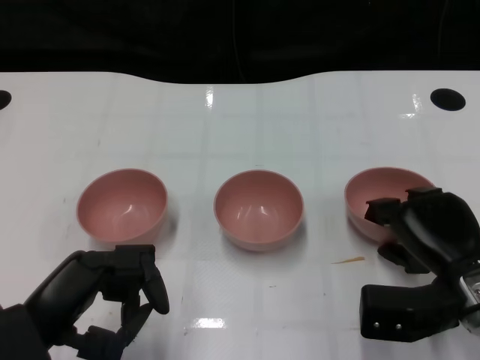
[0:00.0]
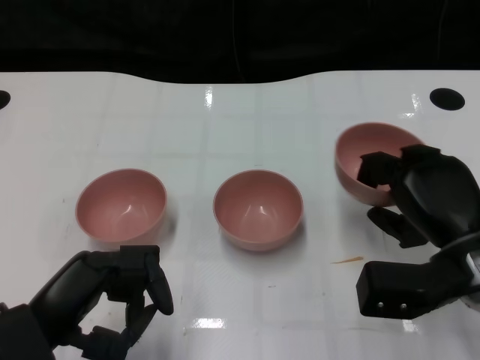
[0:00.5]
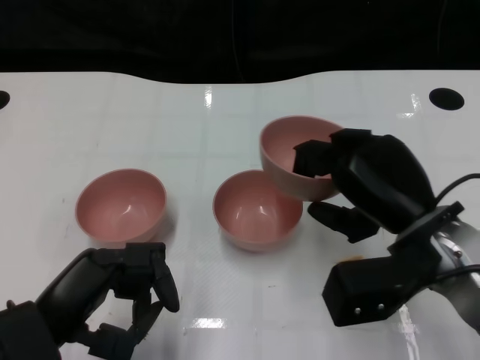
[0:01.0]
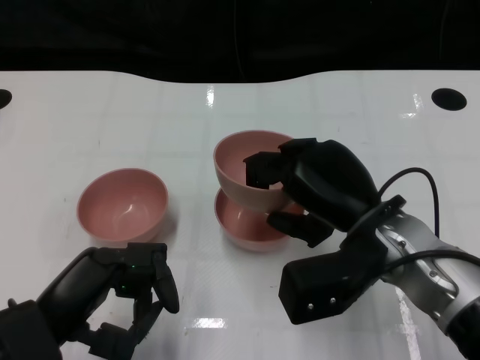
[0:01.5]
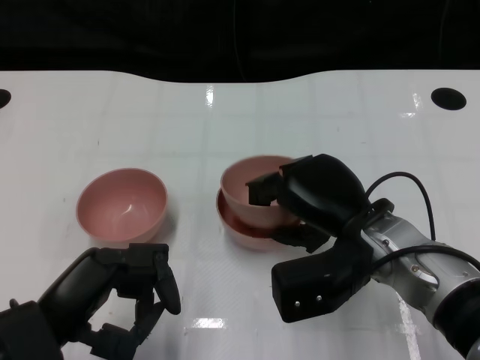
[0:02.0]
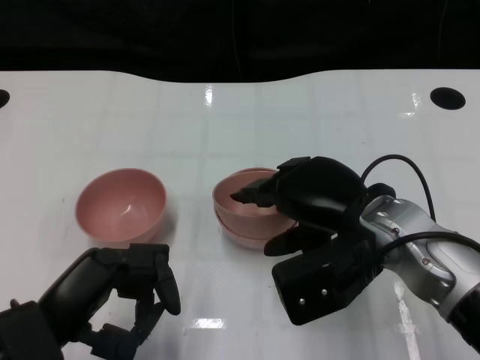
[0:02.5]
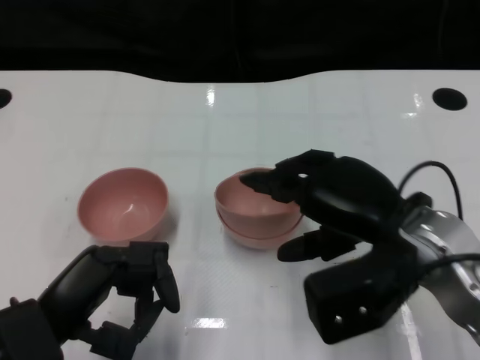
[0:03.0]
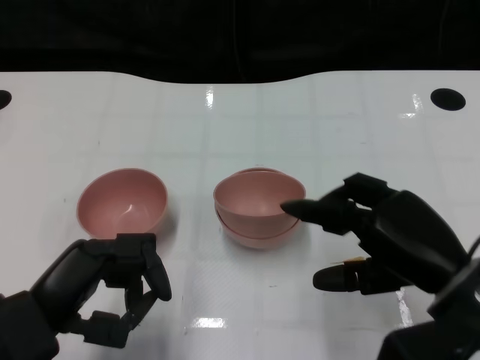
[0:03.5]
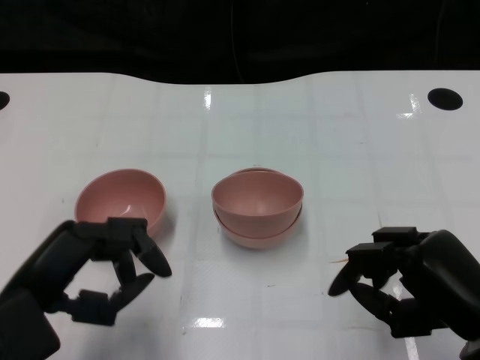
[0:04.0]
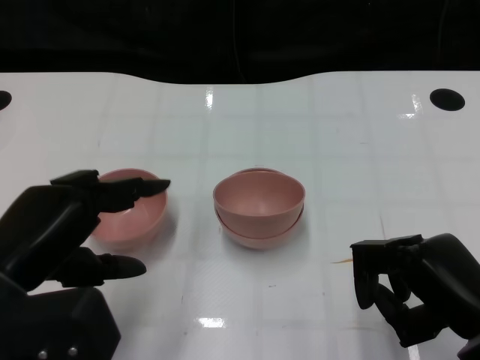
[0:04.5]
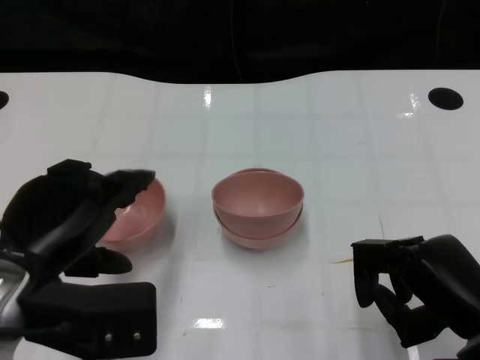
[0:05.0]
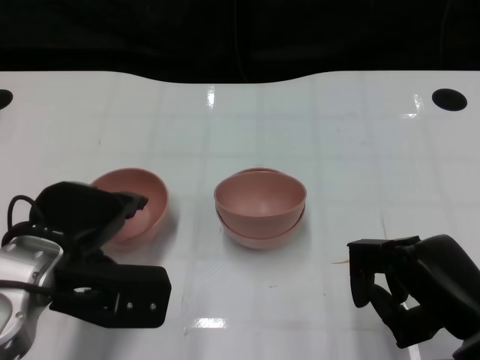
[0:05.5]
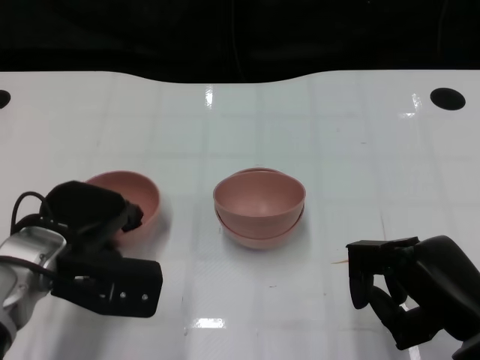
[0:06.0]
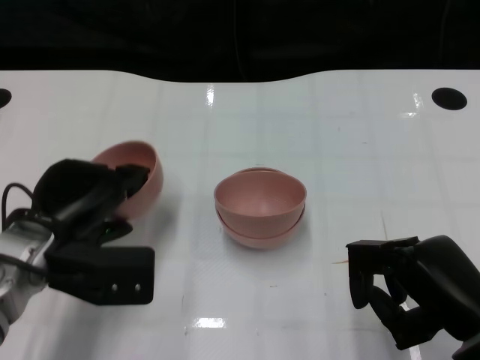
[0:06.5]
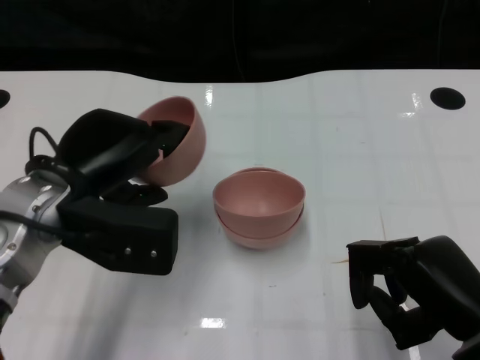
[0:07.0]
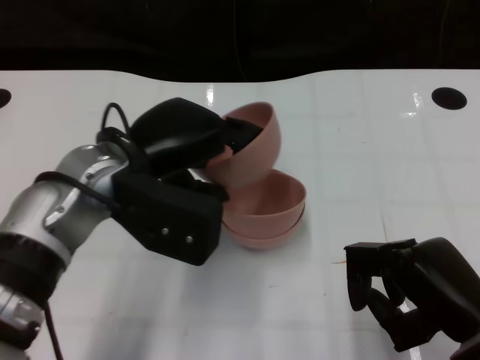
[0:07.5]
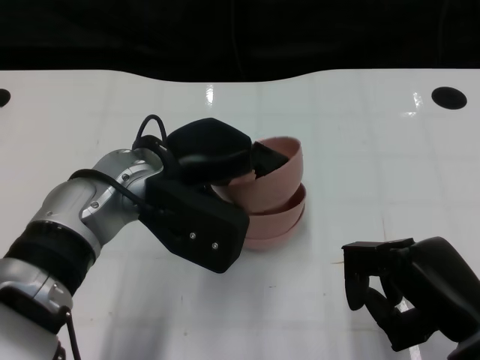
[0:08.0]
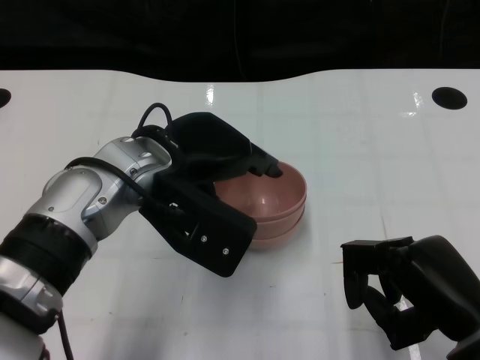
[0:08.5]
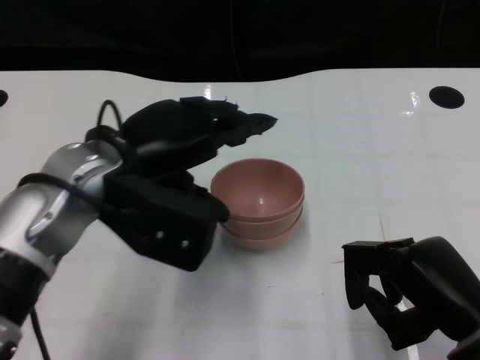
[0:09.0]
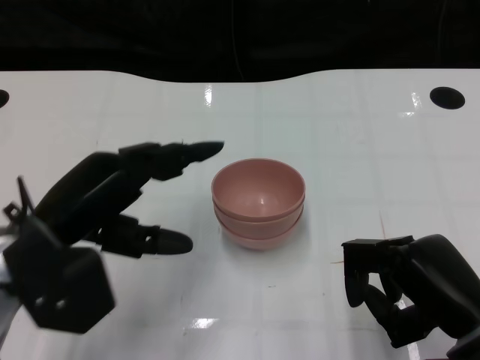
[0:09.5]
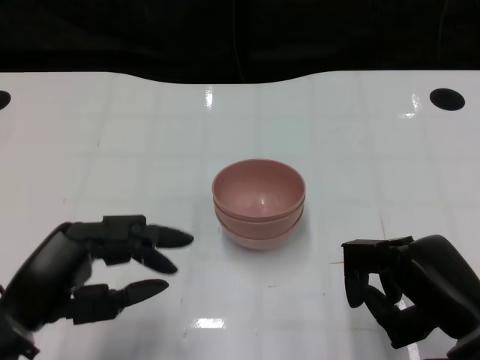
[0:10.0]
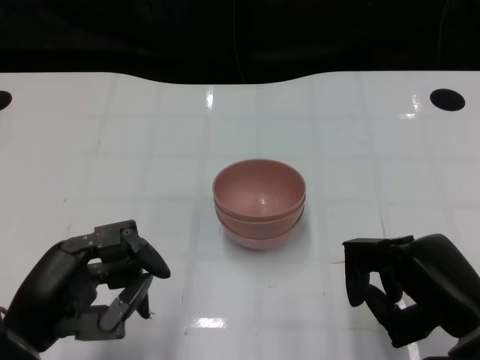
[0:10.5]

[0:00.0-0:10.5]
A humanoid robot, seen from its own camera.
Task of the whole recording: Pick up the bowl on one side of the table and place it on top of the middle bowl, then pick up the bowl on the other side of the table and place it on top of the middle bowls.
Step, 0.5 to 3.0 s: Place the bowl on the right onto the bowl in the middle with right gripper.
Step, 3.5 to 6.0 s: Grasp the bowl on the left with the left gripper.
Step, 6.5 to 9.0 s: Place the bowl on the left onto the bowl in the middle with left gripper.
0.0 to 2.0 s: The right hand is displaced to the left by about 10 cm.
2.0 to 4.0 s: The right hand heads to the right and backward, covering about 15 cm.
4.0 to 6.5 s: The left hand travels forward by about 10 cm.
6.5 to 8.5 s: The left hand moves to the right and upward, some 15 cm.
8.5 to 10.5 s: The left hand goes some 20 cm backward, to the left and downward.

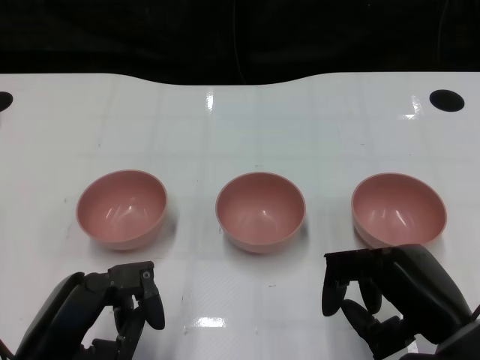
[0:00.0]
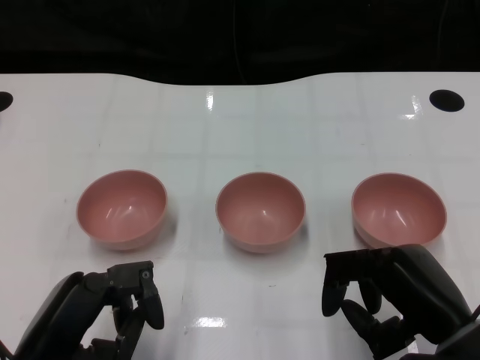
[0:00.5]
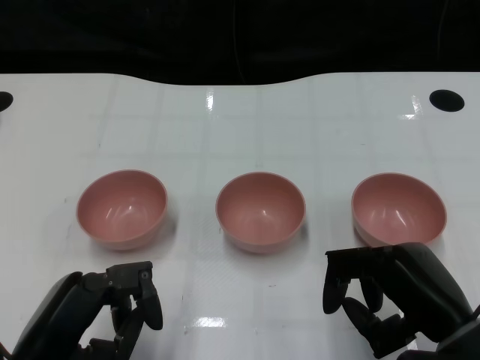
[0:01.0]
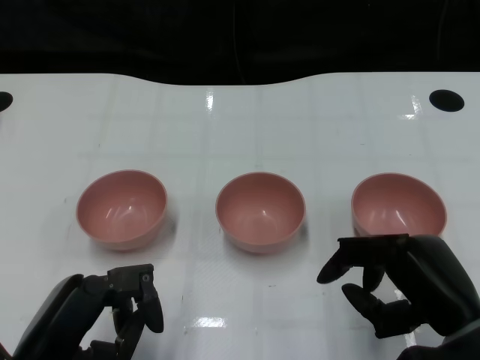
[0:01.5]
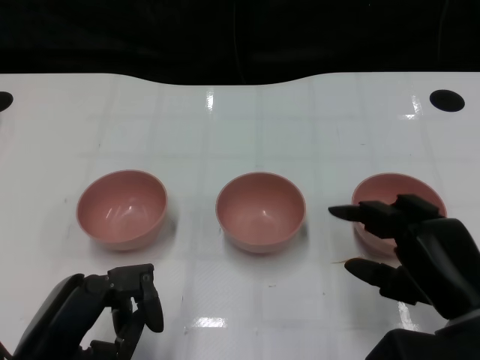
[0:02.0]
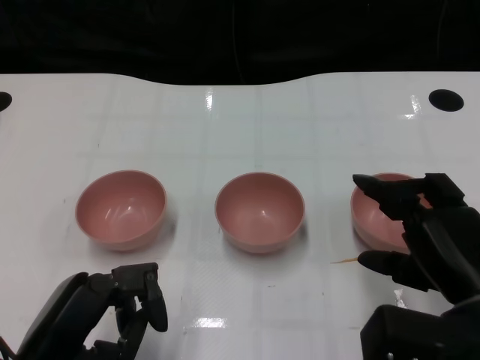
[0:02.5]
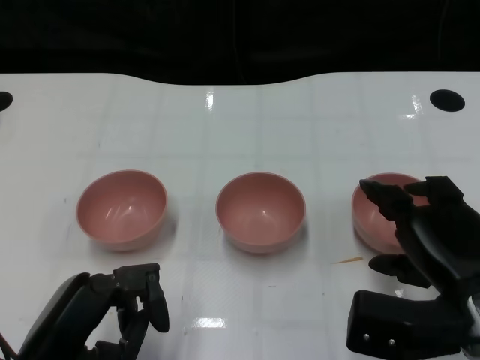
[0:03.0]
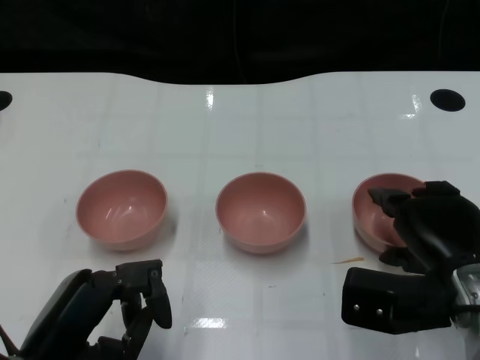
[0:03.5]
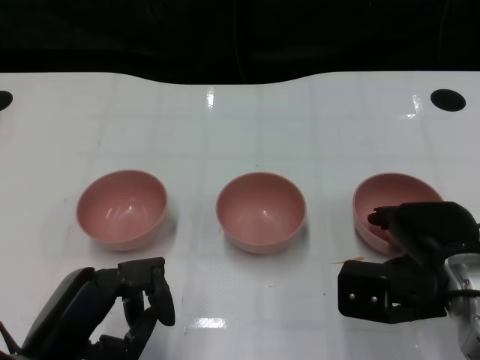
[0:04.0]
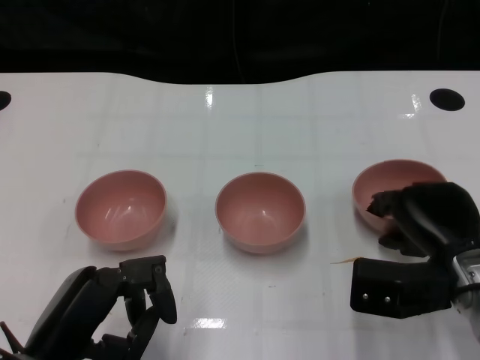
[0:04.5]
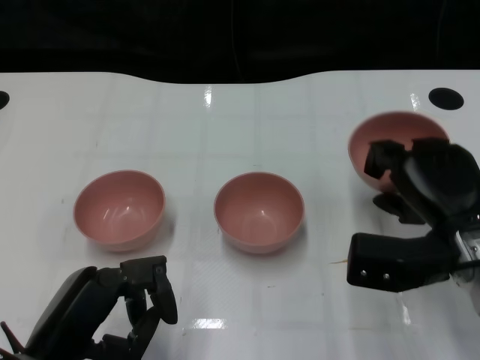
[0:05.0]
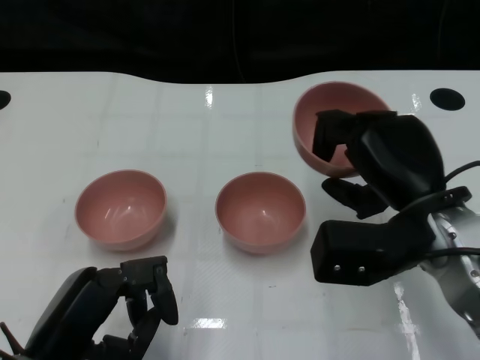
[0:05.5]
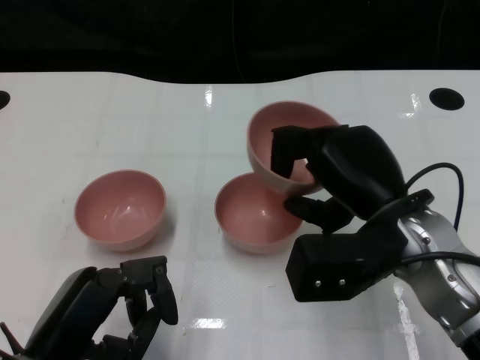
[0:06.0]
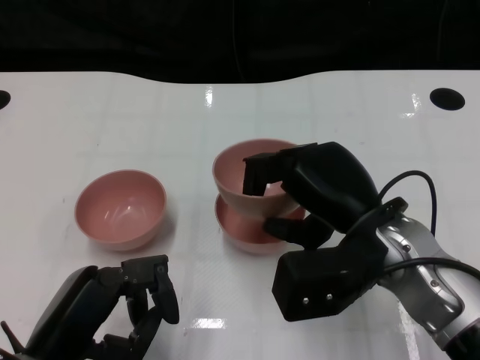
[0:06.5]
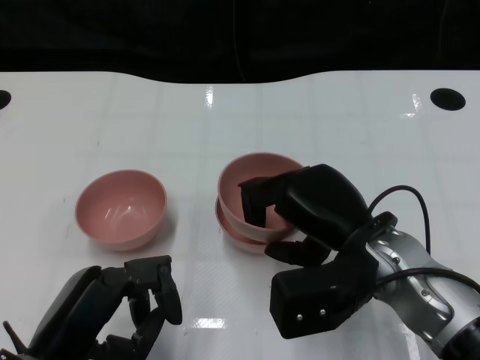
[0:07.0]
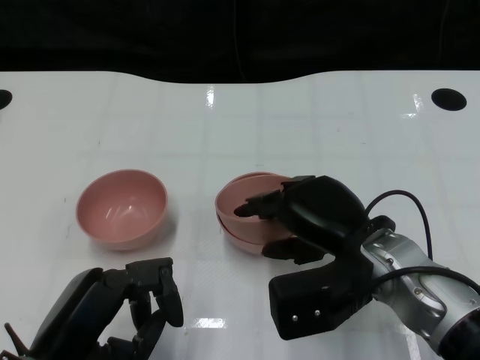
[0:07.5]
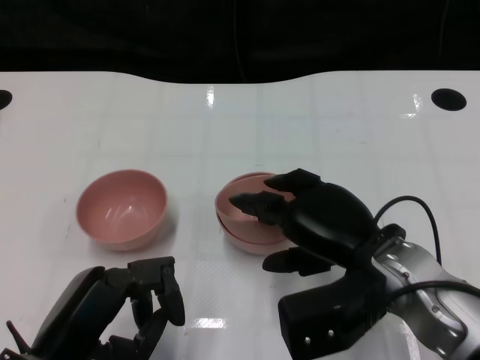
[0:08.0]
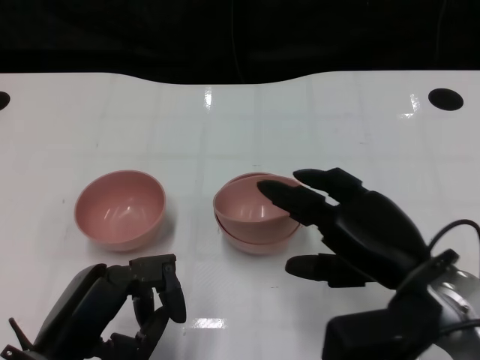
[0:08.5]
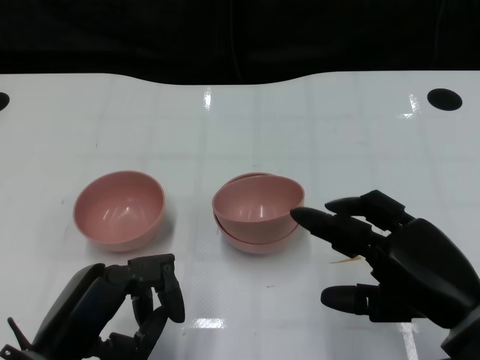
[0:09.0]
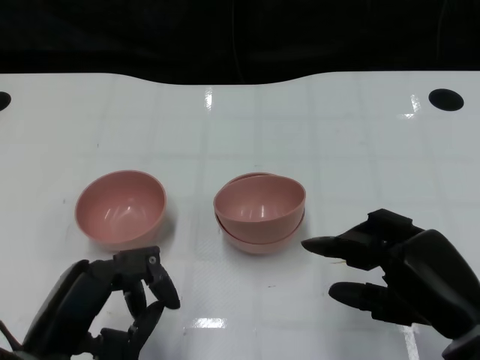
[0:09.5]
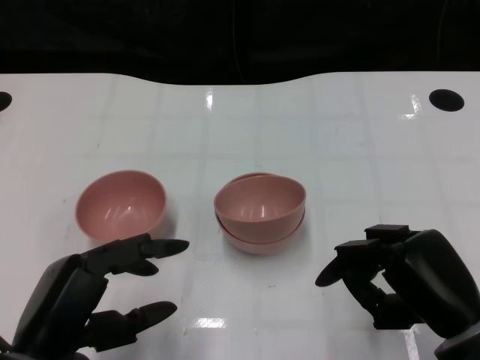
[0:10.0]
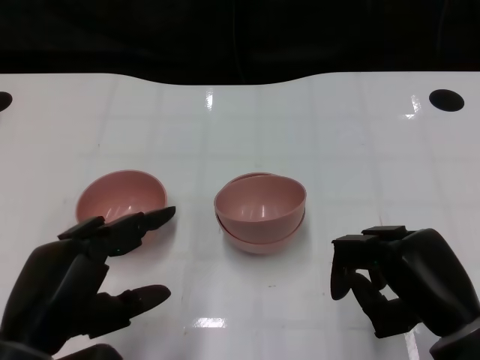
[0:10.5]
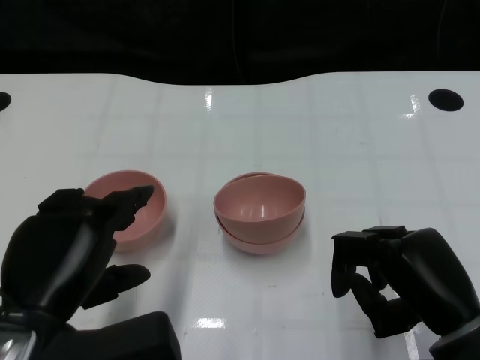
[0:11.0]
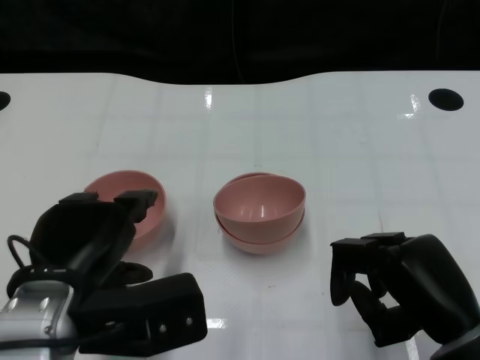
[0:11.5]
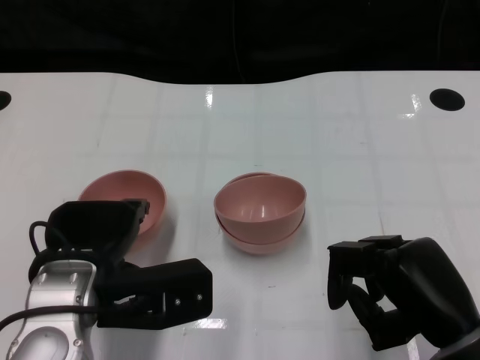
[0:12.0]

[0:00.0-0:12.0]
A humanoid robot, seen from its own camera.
Task of the whole recording: Pick up the bowl on one side of the table and place it on top of the middle bowl, then pick up the bowl on the other side of the table and place it on top of the middle bowls.
Step, 1.5 to 4.5 s: Grasp the bowl on the right with the right gripper.
Step, 5.0 to 8.5 s: Place the bowl on the right onto the bowl in the middle with right gripper.
2.0 to 4.0 s: The right hand is displaced forward by roughly 5 cm.
4.0 to 6.0 s: The right hand goes approximately 10 cm to the left and upward.
8.0 to 10.0 s: The right hand heads to the right and backward, covering roughly 10 cm.
10.0 to 12.0 s: The left hand shifts roughly 10 cm forward.

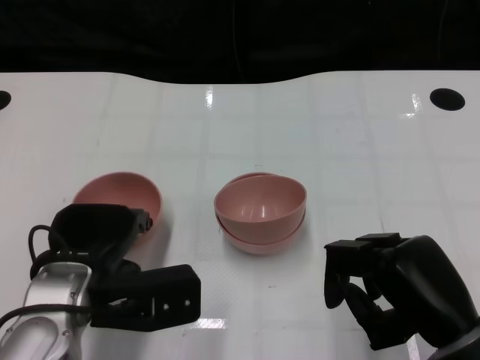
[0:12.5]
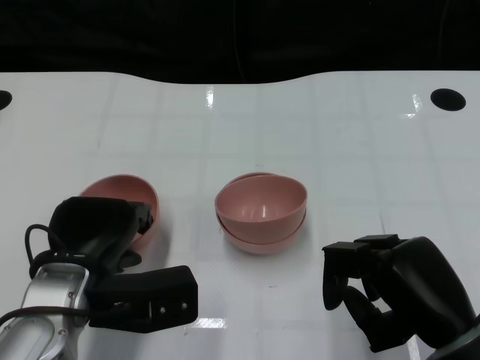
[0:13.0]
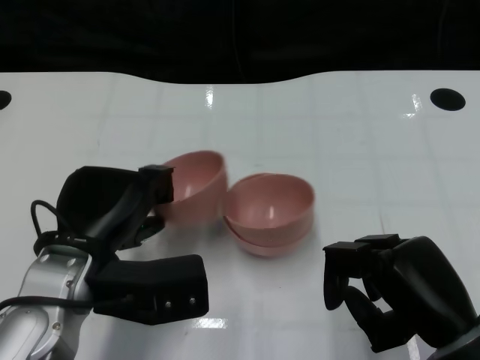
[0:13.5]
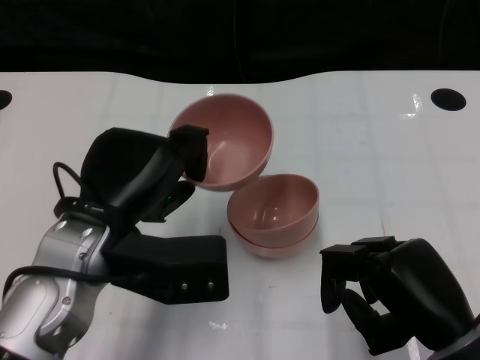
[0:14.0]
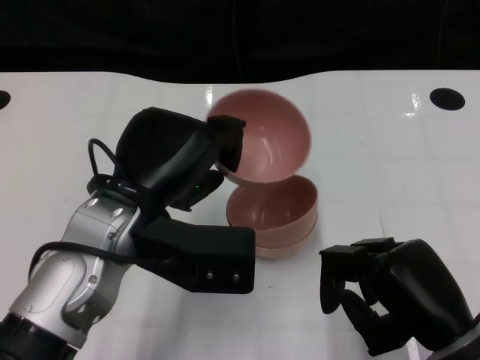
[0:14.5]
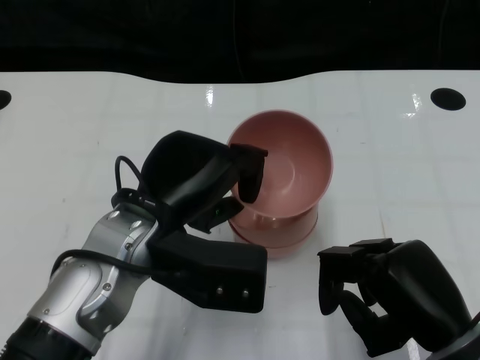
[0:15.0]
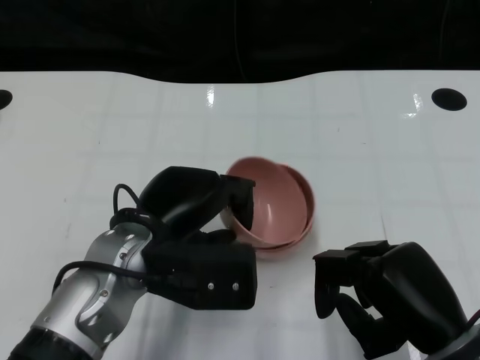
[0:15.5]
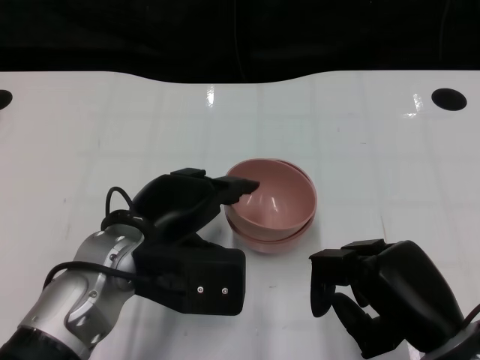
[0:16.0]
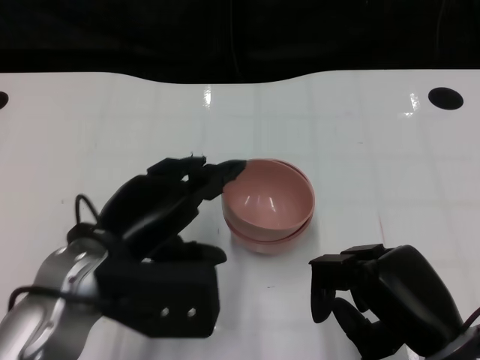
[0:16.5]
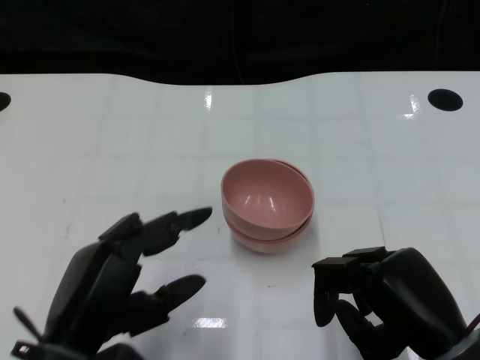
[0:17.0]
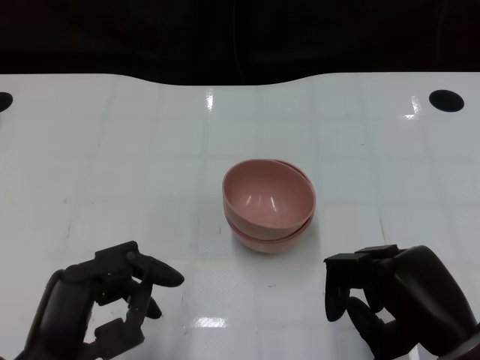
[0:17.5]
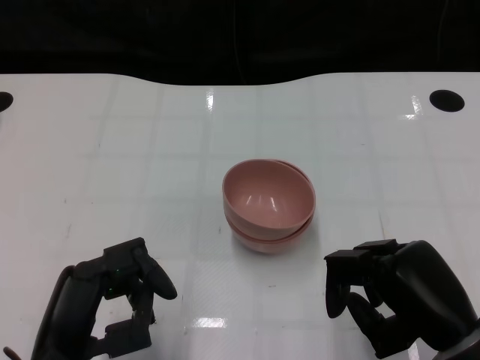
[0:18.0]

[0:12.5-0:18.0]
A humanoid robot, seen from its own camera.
Task of the whole recording: Pick up the bowl on one side of the table and place it on top of the middle bowl, then pick up the bowl on the other side of the table and place it on top of the middle bowls.
Step, 13.5 to 16.5 s: Place the bowl on the left onto the bowl in the middle with left gripper.
12.5 to 14.5 s: The left hand is displaced upward by some 5 cm.
16.0 to 18.0 s: The left hand is displaced backward and to the left by roughly 15 cm.
